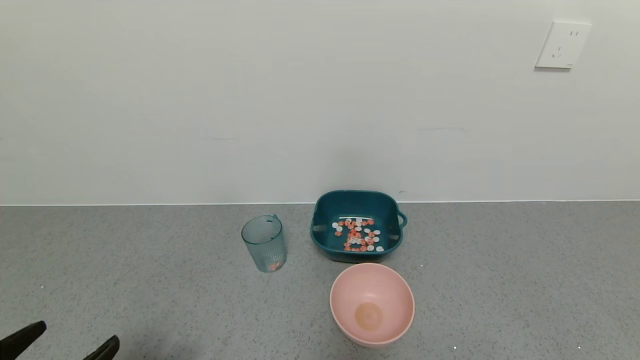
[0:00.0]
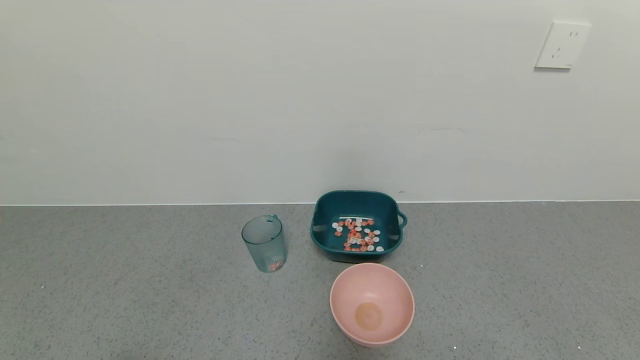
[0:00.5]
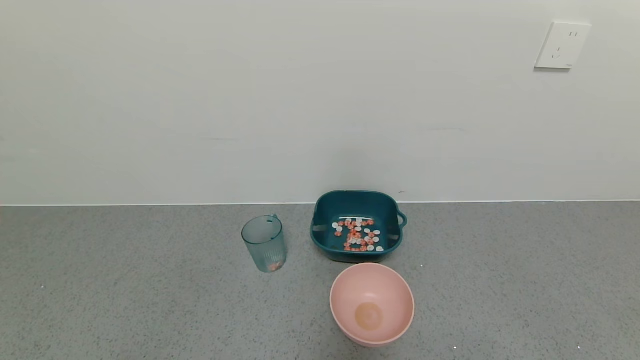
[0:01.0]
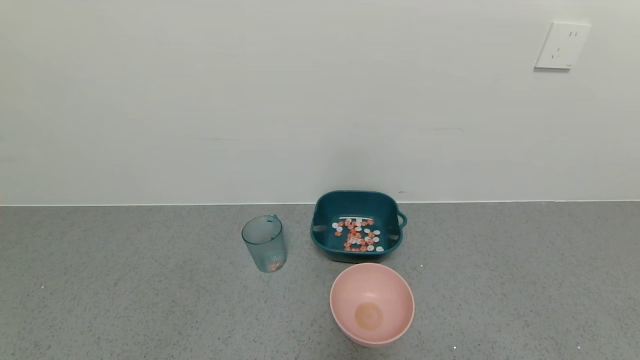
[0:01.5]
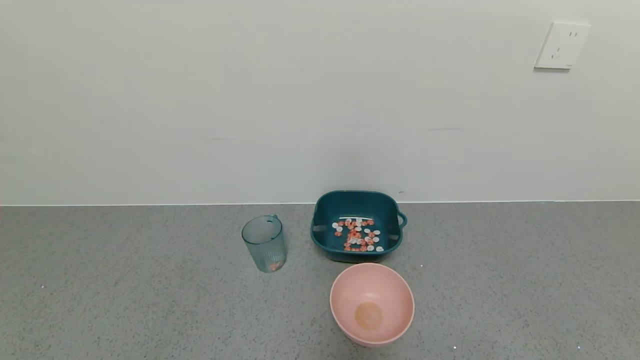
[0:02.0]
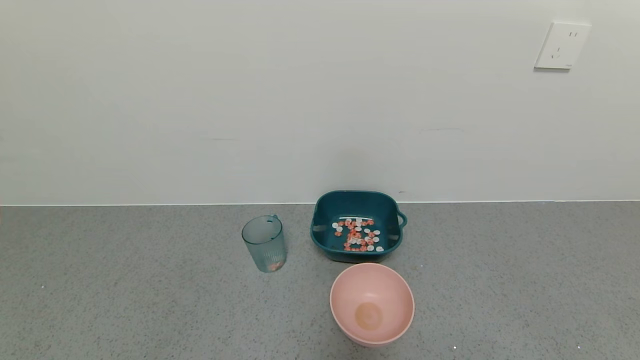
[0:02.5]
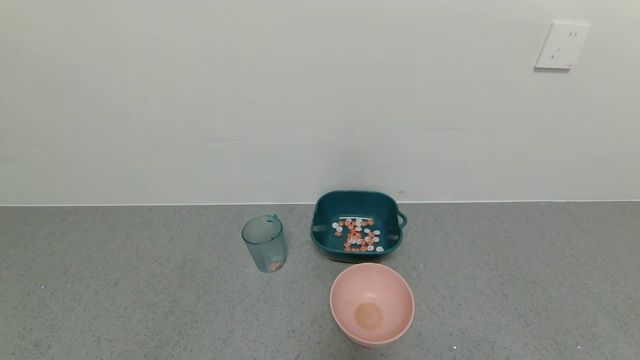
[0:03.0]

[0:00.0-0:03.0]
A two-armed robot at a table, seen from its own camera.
Task of the whole recording: use a gripper to pick up the cup and pour the solid into a bowl or tray.
0:00.0 to 0:01.5: The left gripper heads backward and downward, covering approximately 10 cm.
0:01.5 to 0:03.0: Both grippers stay about where they are.
